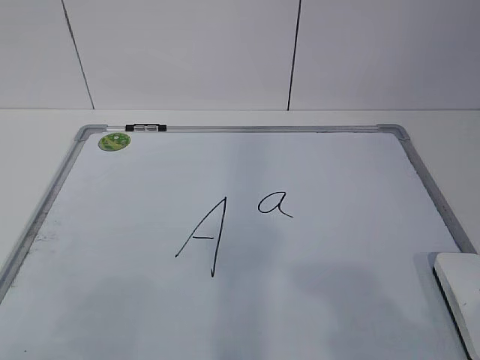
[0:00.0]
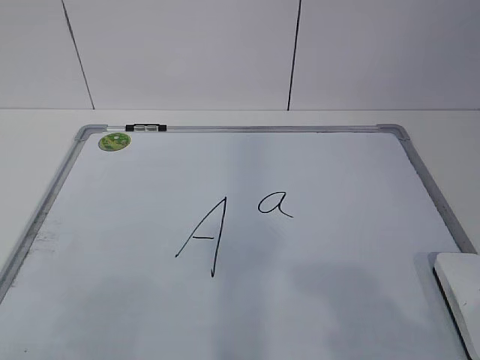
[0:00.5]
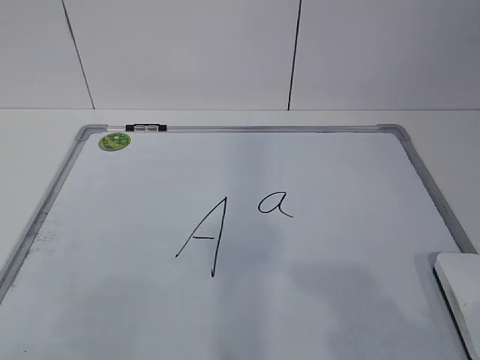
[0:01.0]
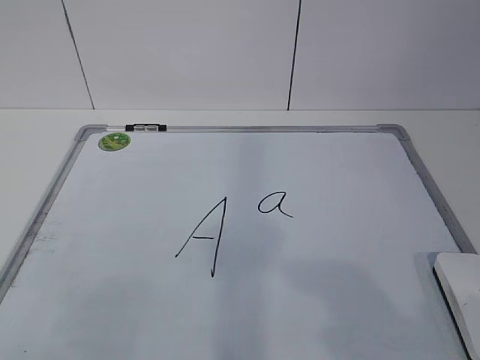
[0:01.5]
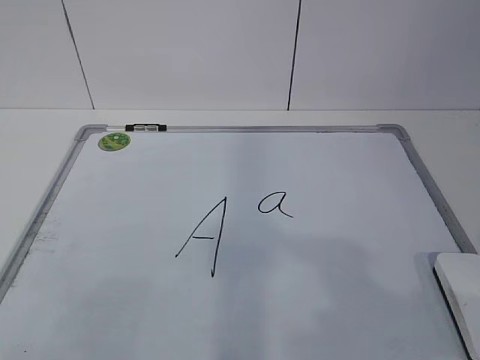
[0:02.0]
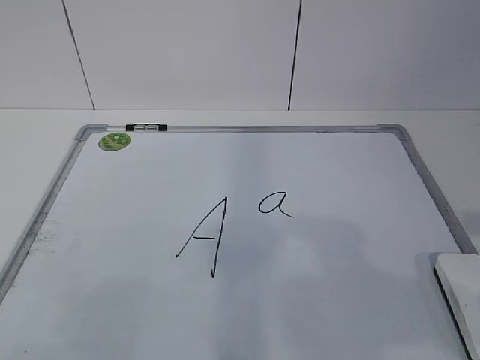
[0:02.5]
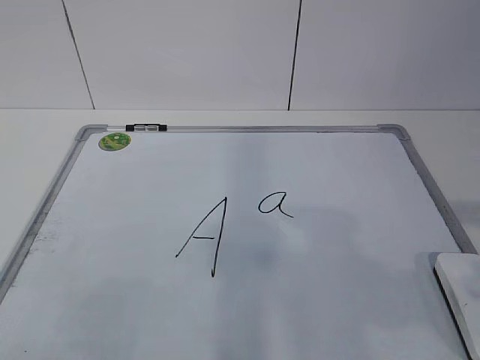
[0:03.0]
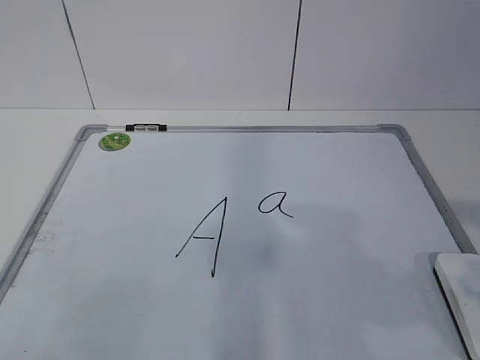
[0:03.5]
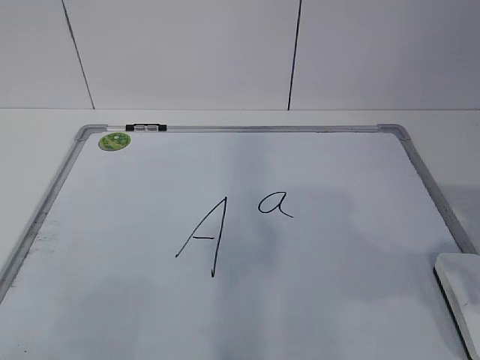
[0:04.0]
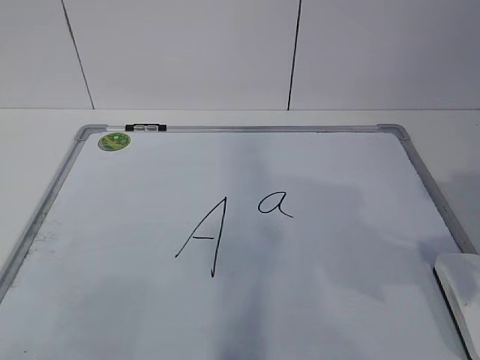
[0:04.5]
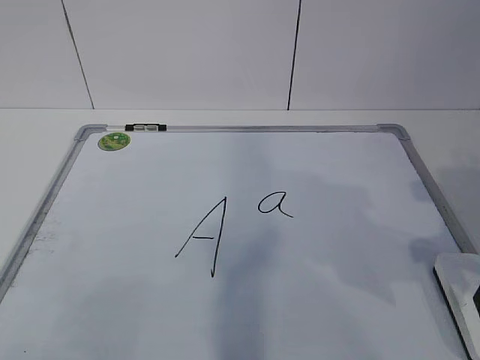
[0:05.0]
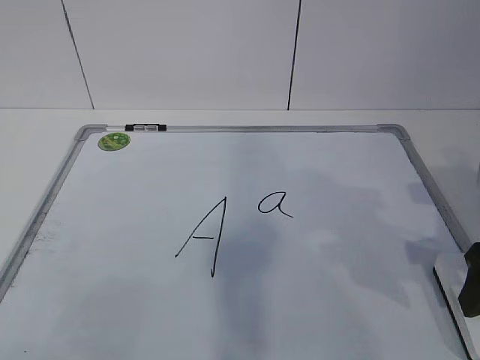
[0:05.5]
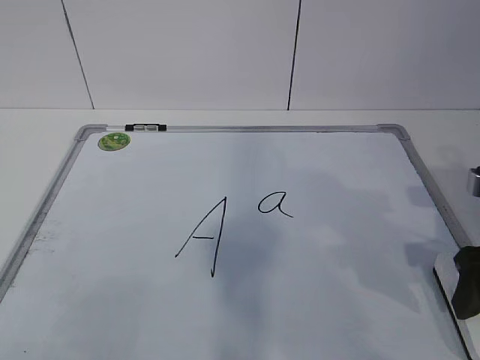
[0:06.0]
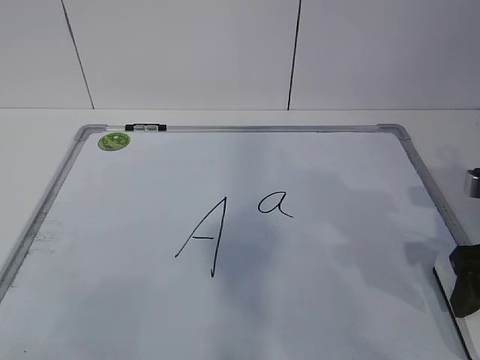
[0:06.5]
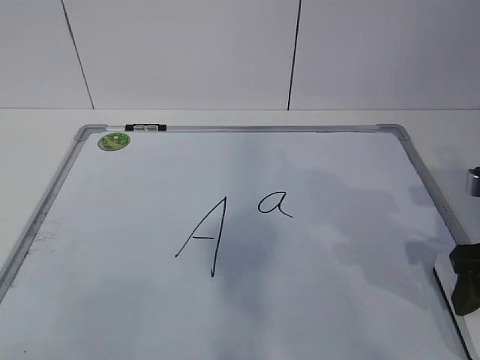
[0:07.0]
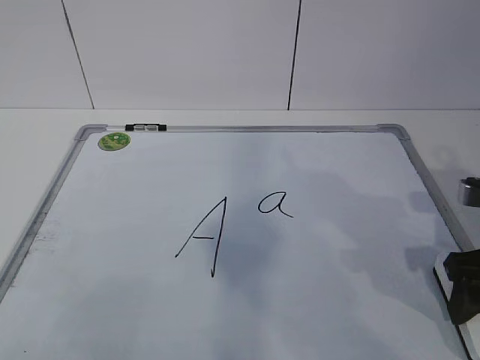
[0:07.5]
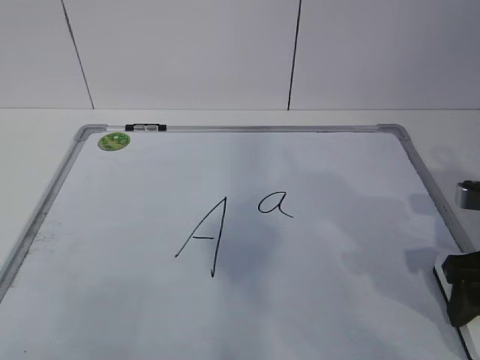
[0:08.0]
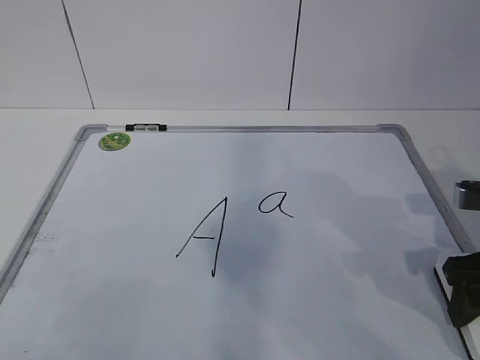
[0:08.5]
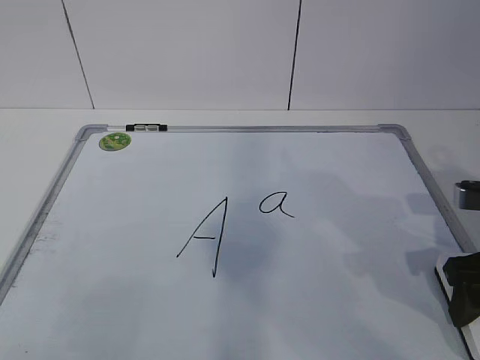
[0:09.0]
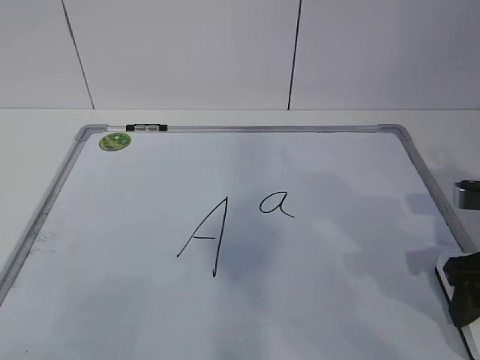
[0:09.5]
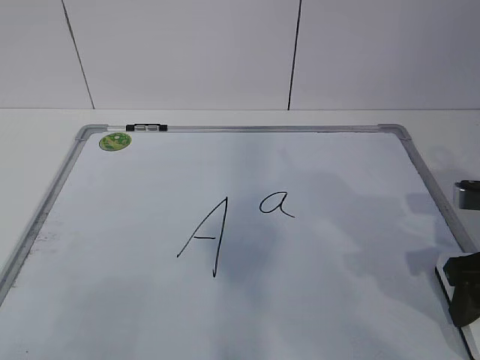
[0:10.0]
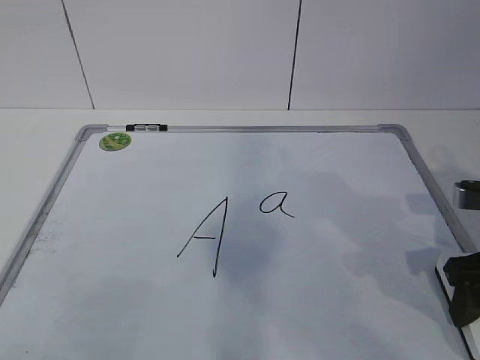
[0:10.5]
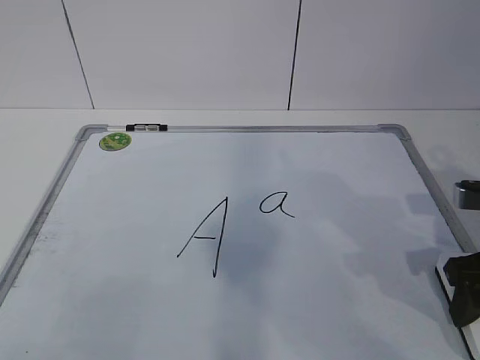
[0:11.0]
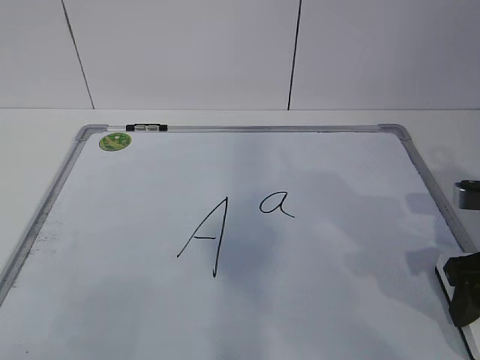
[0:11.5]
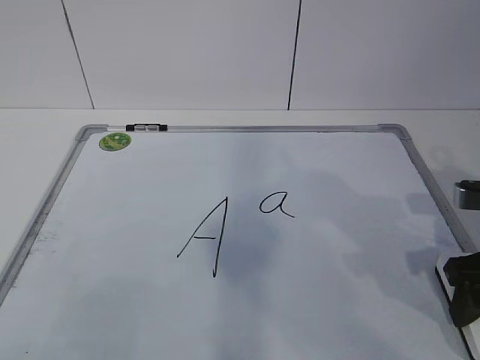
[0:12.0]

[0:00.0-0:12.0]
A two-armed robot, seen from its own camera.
Task of the whole recording: pick up the eraser on the blackboard and erase the letter "a".
0:04.0 to 0:06.0: The right gripper travels forward and downward by some 15 cm.
0:06.0 to 0:08.0: The right gripper closes its fingers.
0:08.0 to 0:12.0: The two grippers keep their place.

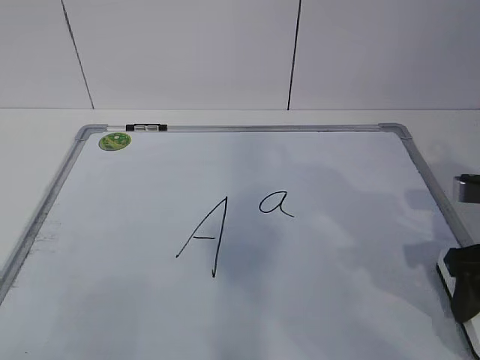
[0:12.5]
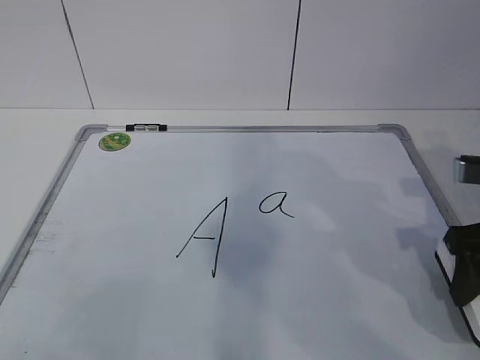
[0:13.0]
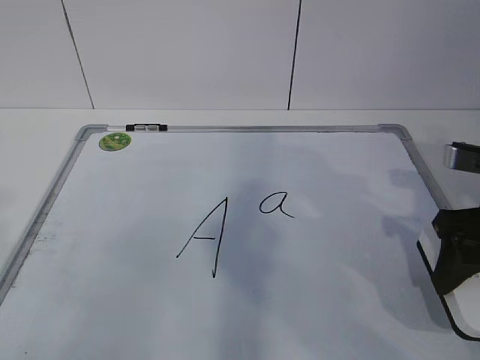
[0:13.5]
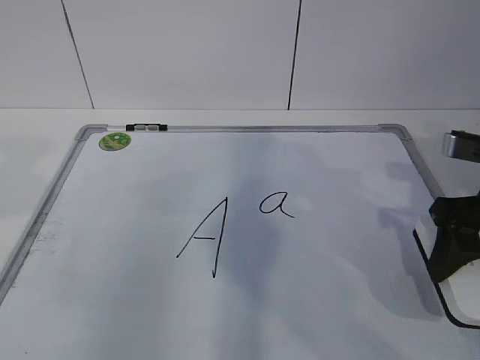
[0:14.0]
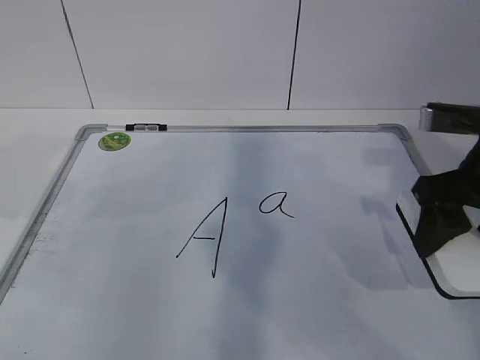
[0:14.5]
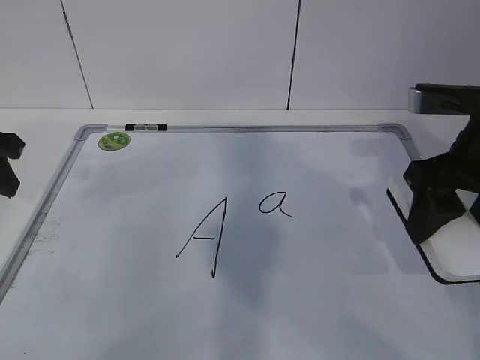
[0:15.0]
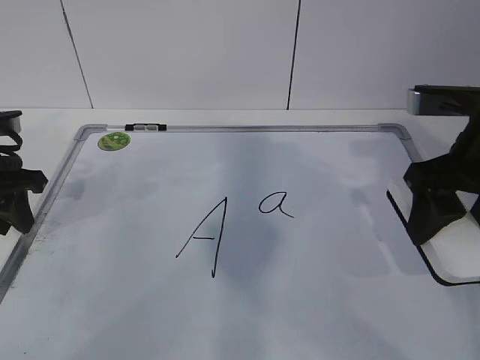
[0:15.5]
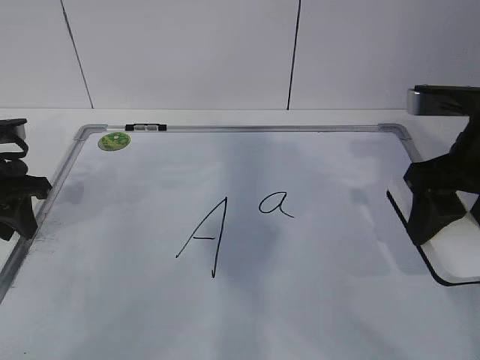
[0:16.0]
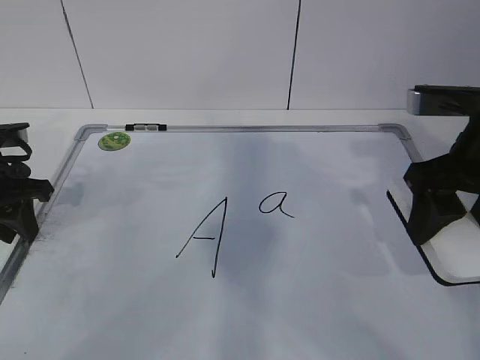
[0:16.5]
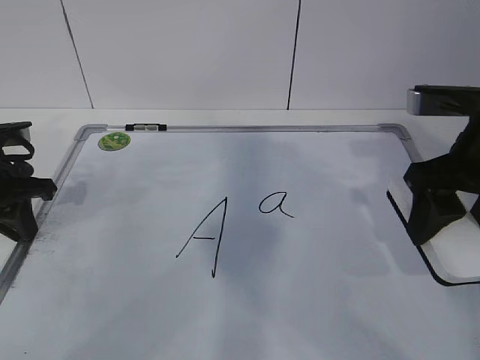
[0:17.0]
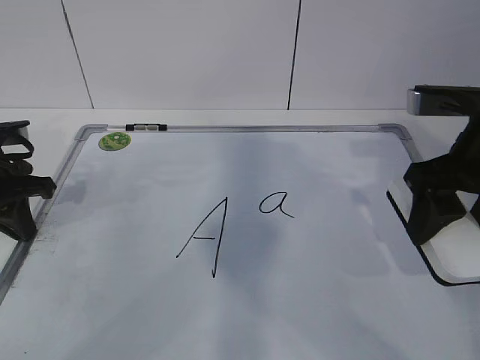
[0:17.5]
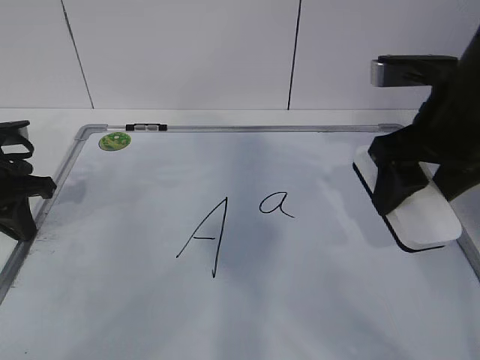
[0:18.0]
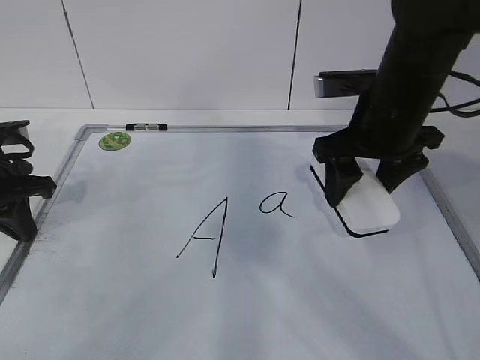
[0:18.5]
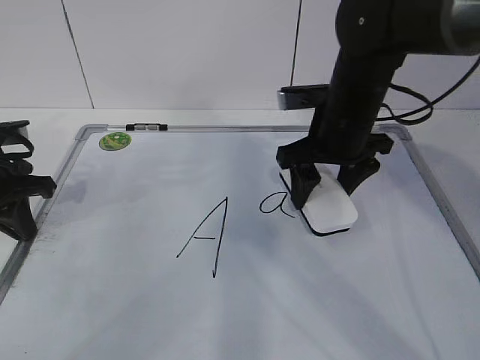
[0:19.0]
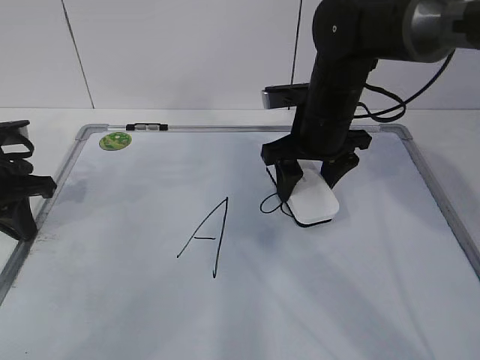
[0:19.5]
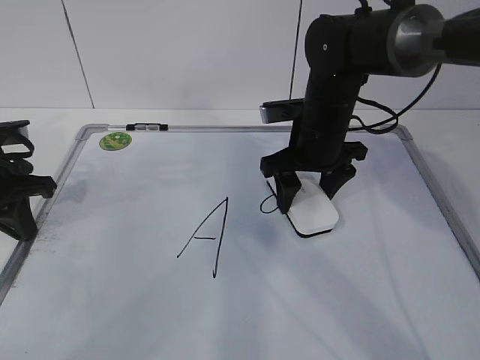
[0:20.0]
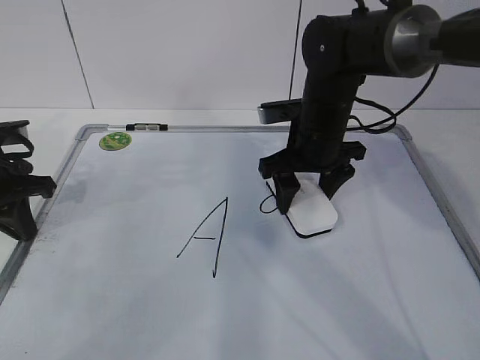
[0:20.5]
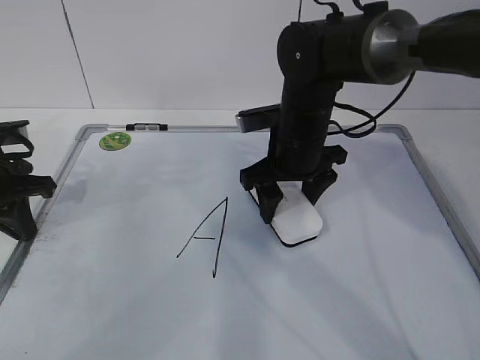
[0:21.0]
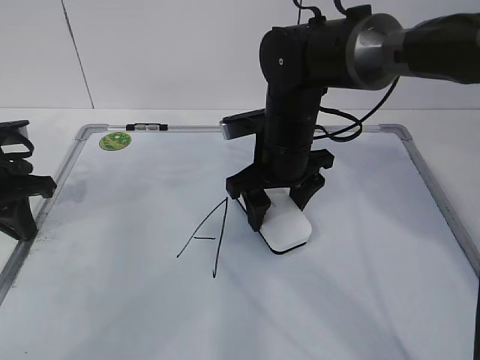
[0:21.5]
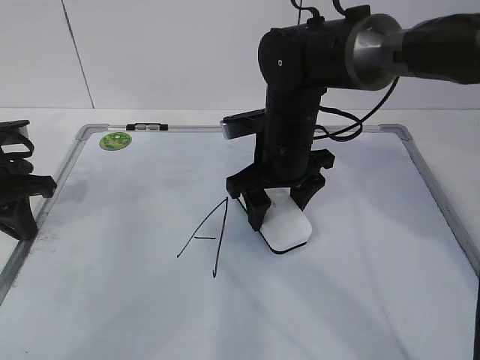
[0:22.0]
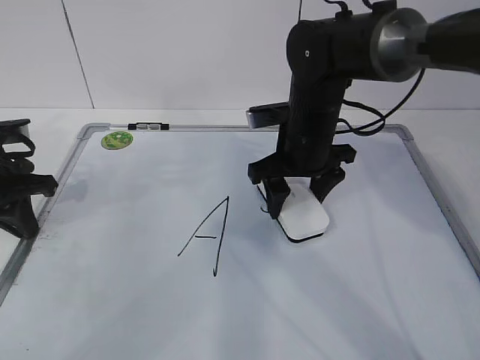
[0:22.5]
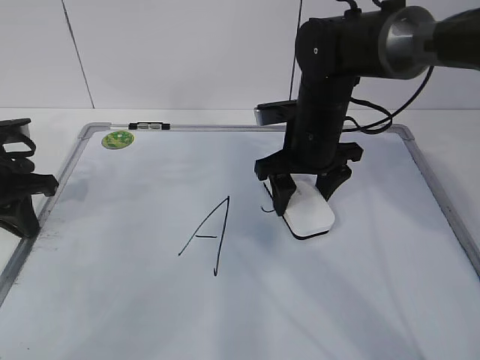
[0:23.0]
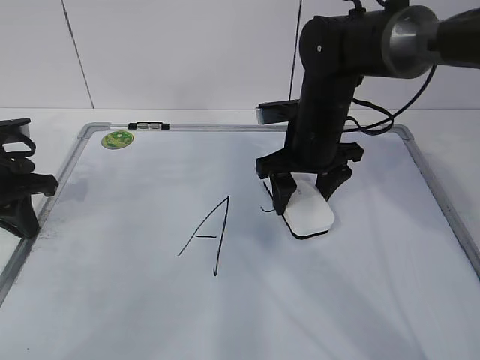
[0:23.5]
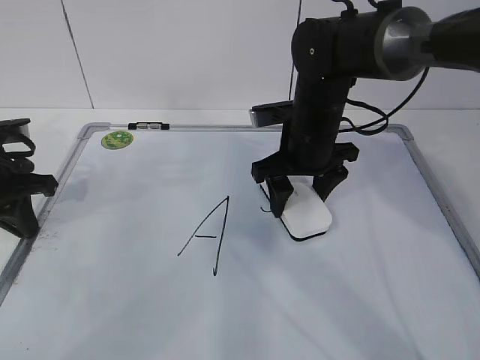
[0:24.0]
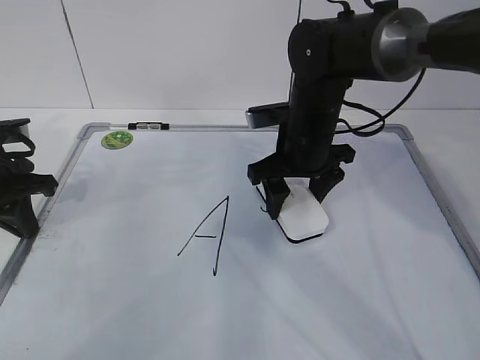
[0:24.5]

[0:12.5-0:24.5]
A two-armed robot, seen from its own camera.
Task of the whole recording: pick up the eraser on the blackboard and erase the letter "a".
Step, 0:14.5 to 0:21.0: Erase the letter a with your right hand.
0:12.5 to 0:14.5: The right gripper moves upward, approximately 5 cm.
0:14.5 to 0:16.5: The left gripper travels downward and forward by approximately 15 cm.
0:16.5 to 0:18.5: The left gripper closes up; the right gripper travels forward and to the left by about 10 cm.
0:18.5 to 0:20.5: The right gripper heads downward, forward and to the left, covering approximately 10 cm.
0:20.5 to 0:22.5: The grippers make only small movements.
0:22.5 to 0:24.5: Neither gripper changes place.

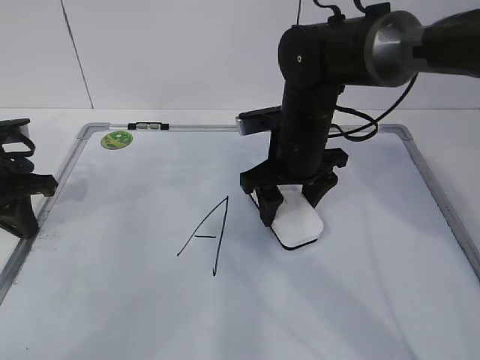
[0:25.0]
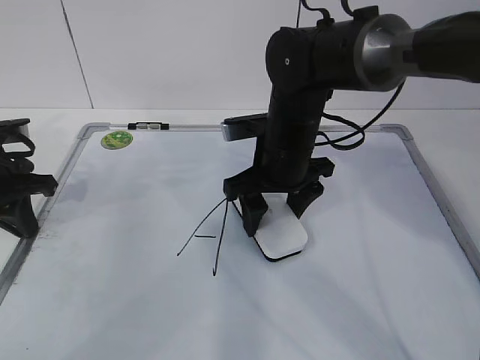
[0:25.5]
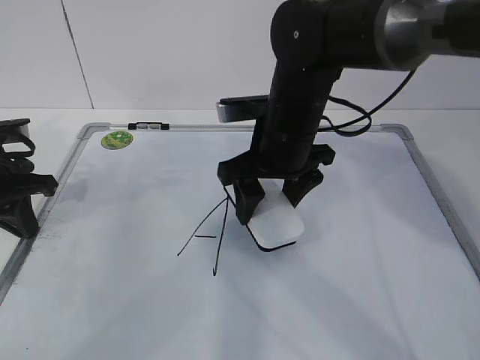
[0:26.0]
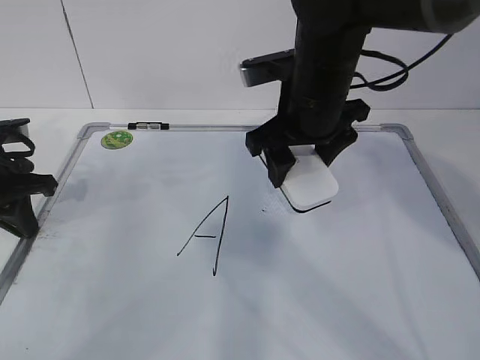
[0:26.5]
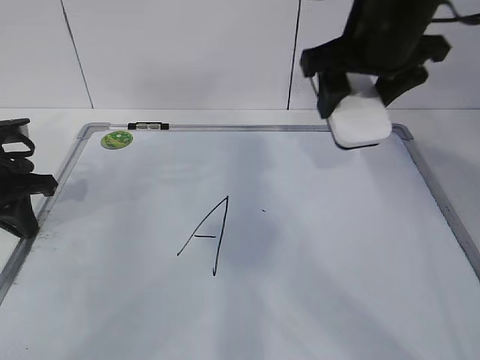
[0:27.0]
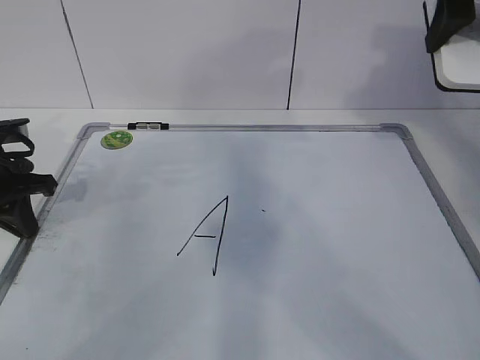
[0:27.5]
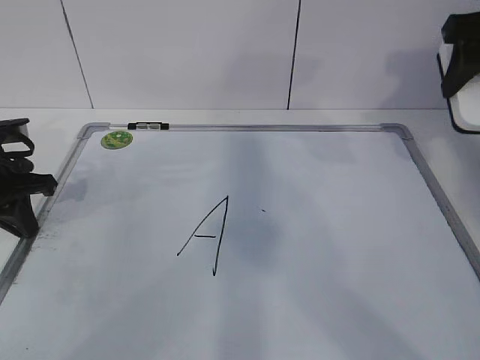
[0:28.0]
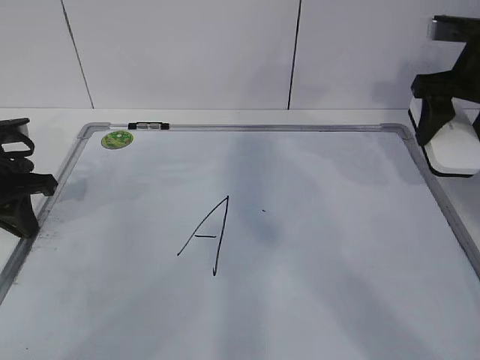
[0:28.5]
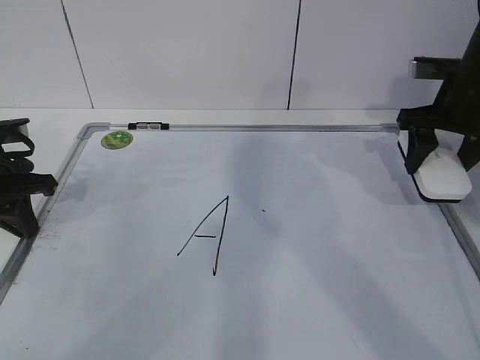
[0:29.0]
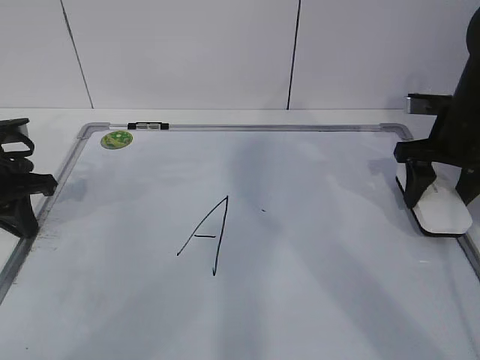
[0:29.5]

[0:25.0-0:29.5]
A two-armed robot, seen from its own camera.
Task of the whole recording: pick up the eraser on the blackboard and erase the letter "a".
0:25.0 to 0:27.0: The right gripper is displaced upward and to the right by some 15 cm.
0:27.0 to 0:29.5: The right gripper shifts some 20 cm to the right and downward.
